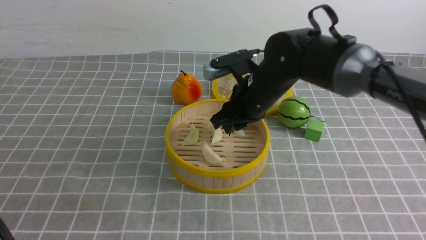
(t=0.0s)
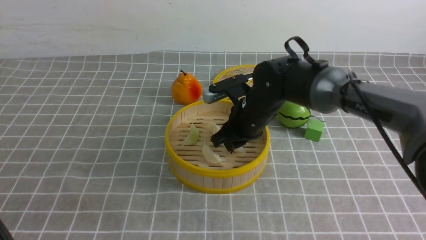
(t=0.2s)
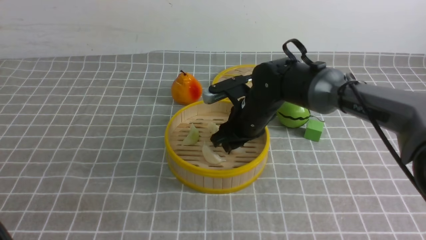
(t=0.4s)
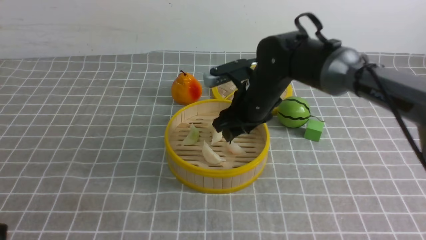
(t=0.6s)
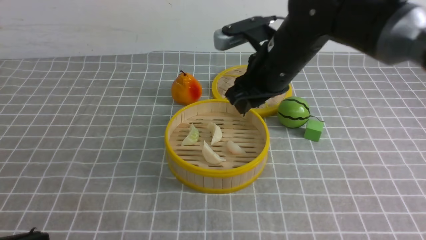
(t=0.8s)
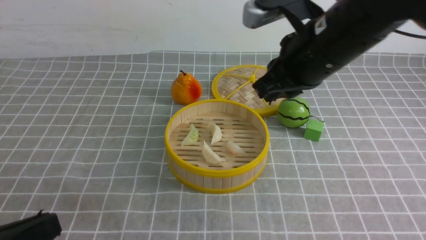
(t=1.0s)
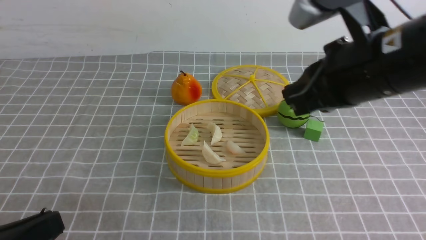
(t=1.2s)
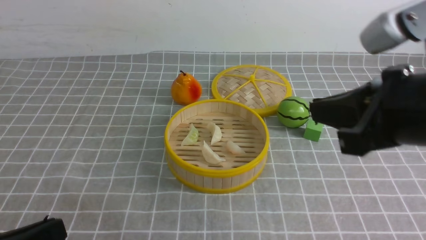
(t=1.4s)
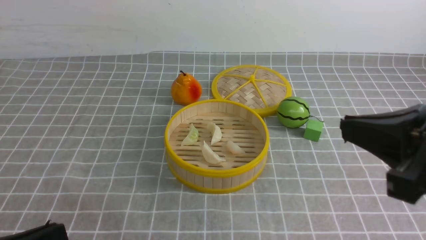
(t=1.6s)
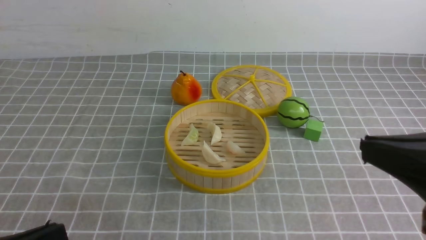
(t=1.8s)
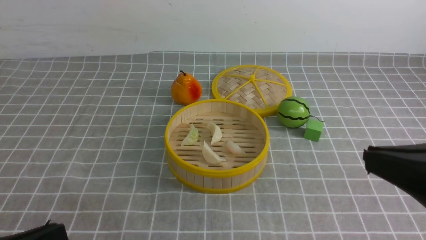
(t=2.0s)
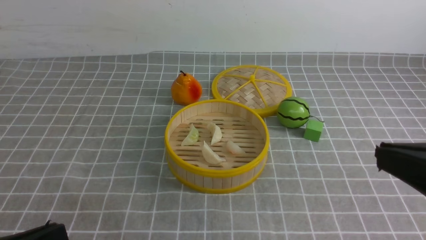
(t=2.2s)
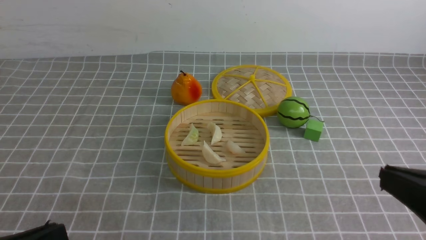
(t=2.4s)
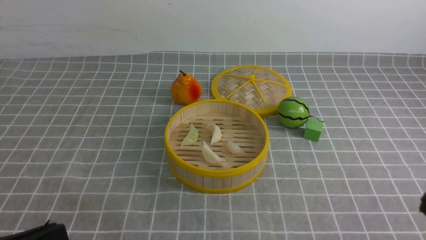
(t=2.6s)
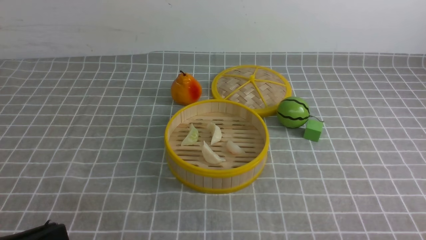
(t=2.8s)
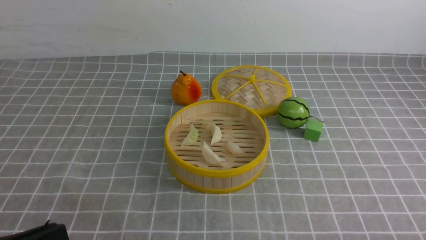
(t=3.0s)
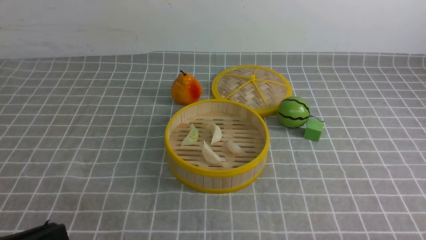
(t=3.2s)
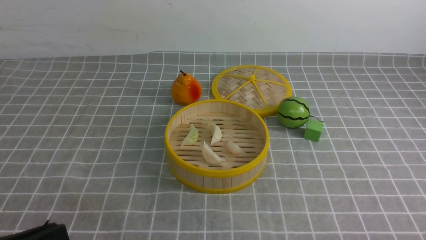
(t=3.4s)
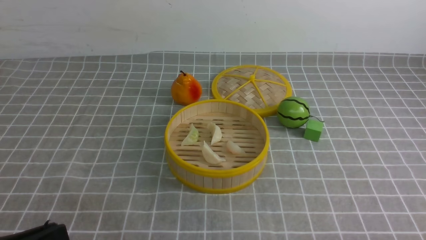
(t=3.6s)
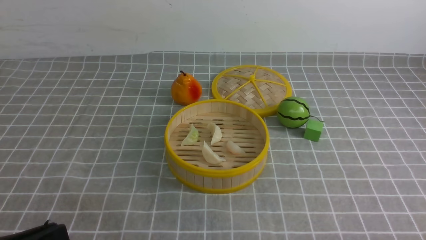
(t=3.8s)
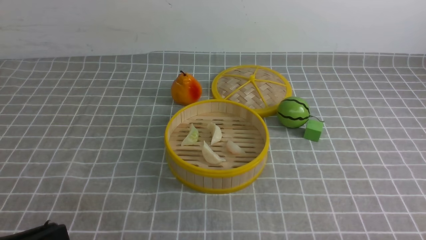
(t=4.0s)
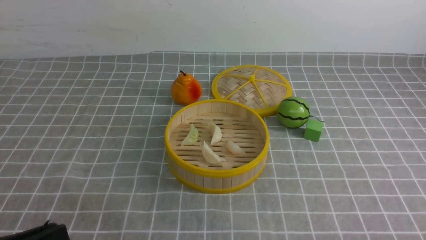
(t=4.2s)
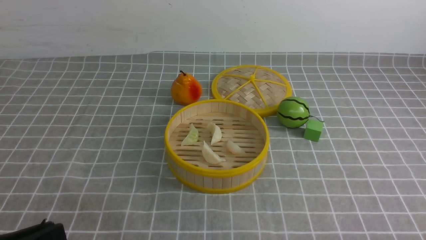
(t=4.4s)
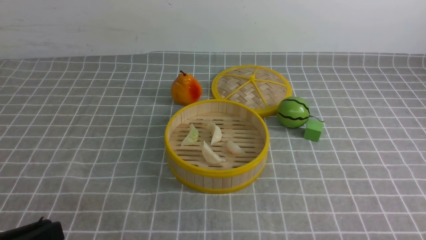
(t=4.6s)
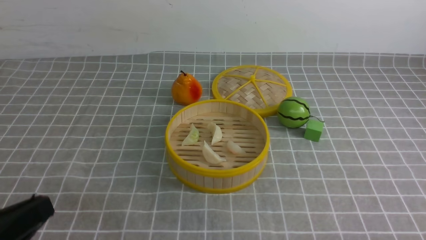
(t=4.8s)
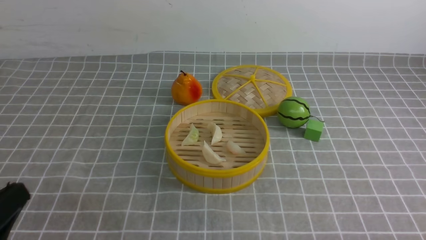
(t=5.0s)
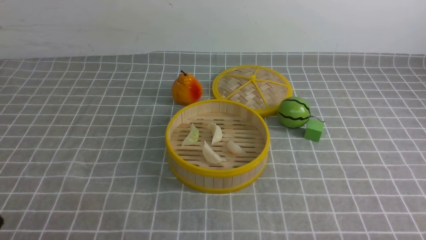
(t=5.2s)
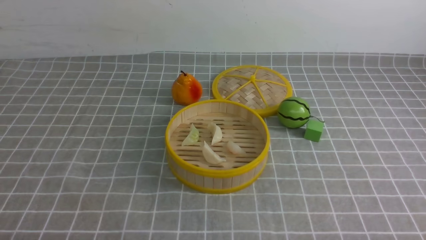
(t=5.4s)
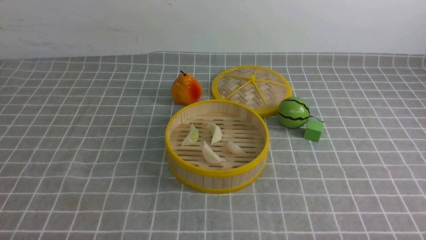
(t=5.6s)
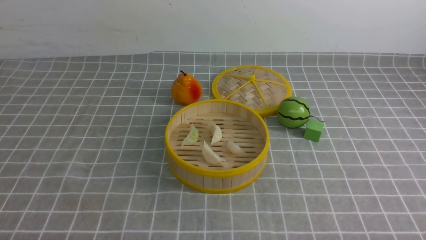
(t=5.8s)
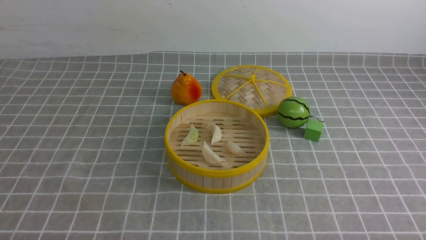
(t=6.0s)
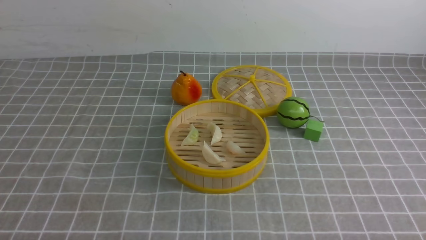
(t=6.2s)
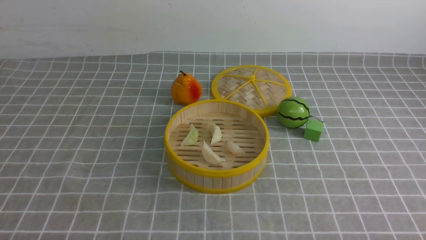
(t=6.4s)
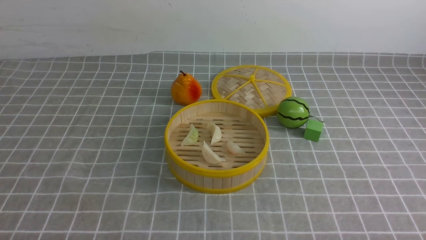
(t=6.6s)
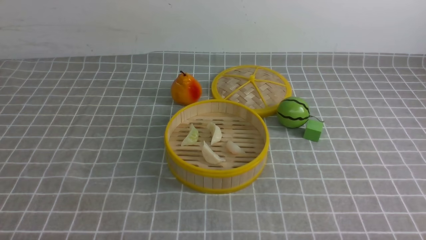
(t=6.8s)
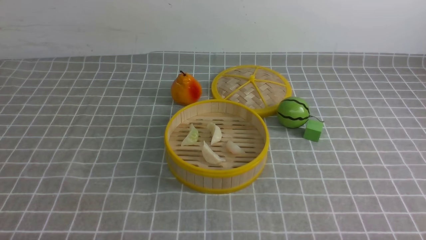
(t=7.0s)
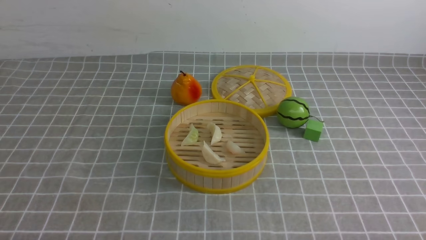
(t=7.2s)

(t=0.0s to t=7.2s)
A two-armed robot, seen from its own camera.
Task of the whole recording: put the dumplings into the steamer on the table with the grey tablecloth.
Step, t=0.0s - t=0.6s: use the right arm to put the dumpling into the steamer.
t=0.0s - t=1.4s: The left gripper shifts about 10 cm downward. The right gripper moves backward, upward and to the right, approximately 25 cm, and closes up.
t=1.4s - t=2.8s: The right gripper is displaced downward, backward and to the right by roughly 25 cm.
t=4.4s - t=5.8s: The left gripper heads downward, covering about 10 cm.
t=5.8s - t=7.2s: The two grippers keep their place.

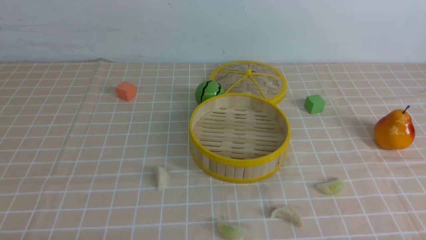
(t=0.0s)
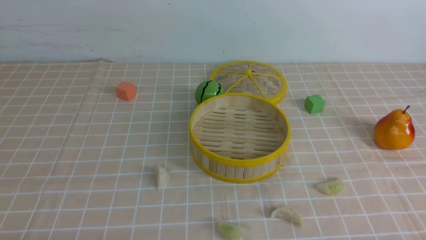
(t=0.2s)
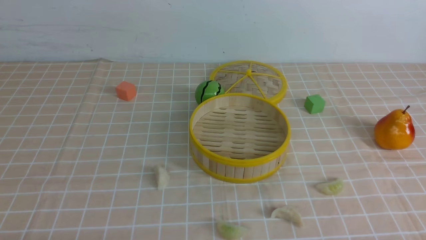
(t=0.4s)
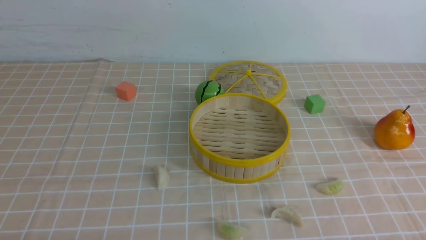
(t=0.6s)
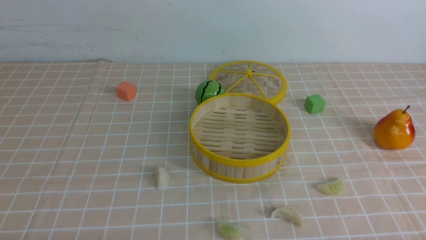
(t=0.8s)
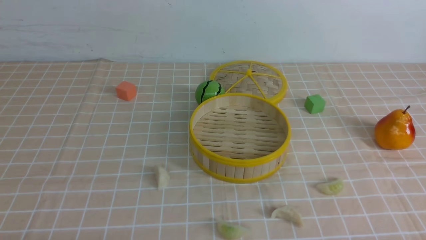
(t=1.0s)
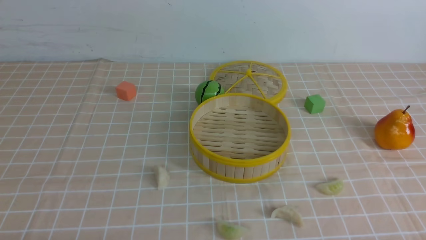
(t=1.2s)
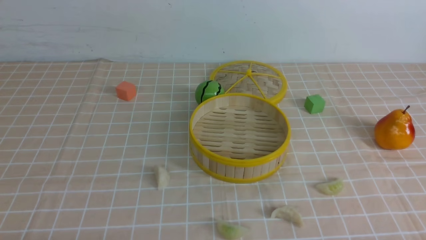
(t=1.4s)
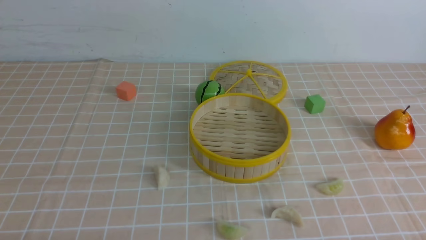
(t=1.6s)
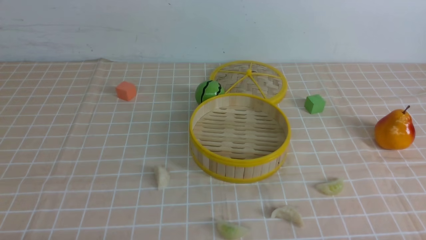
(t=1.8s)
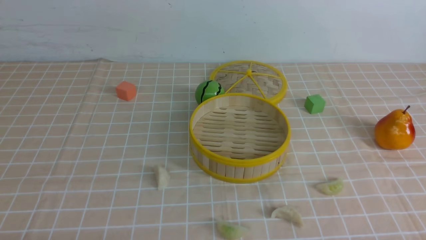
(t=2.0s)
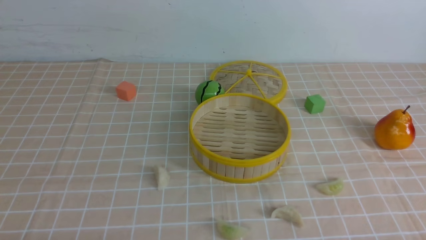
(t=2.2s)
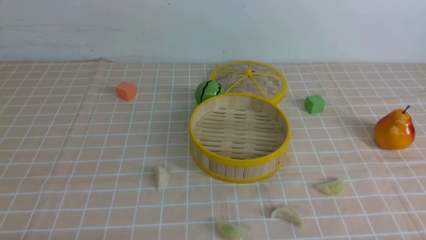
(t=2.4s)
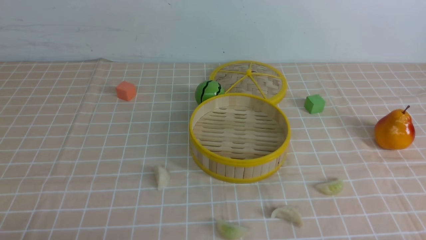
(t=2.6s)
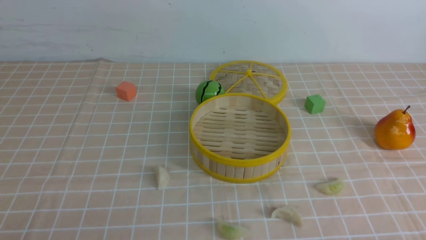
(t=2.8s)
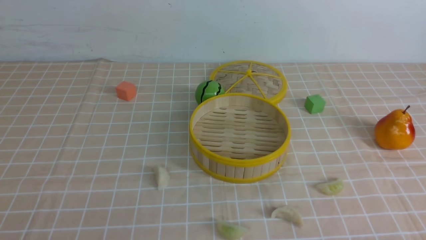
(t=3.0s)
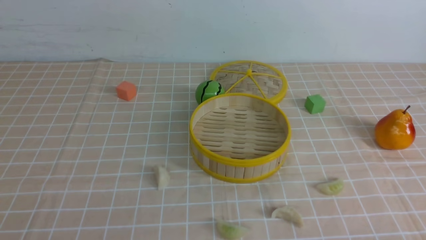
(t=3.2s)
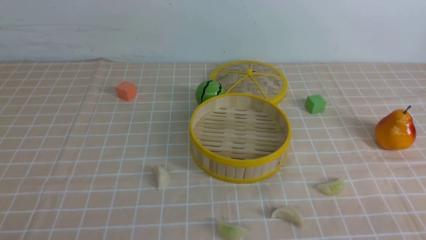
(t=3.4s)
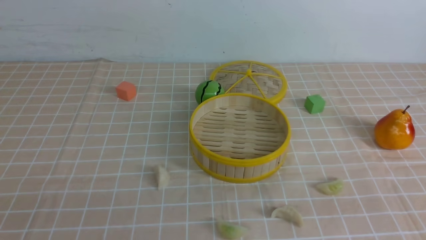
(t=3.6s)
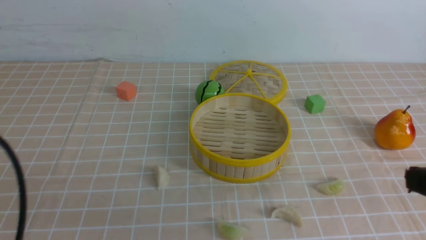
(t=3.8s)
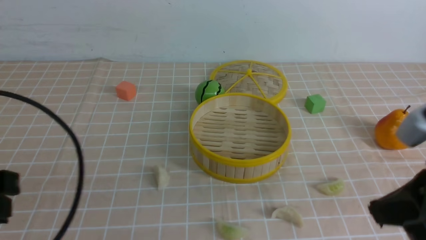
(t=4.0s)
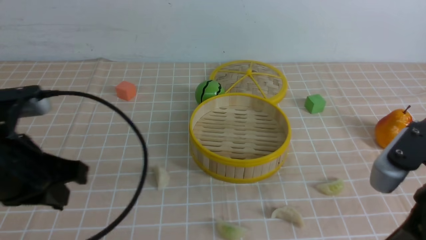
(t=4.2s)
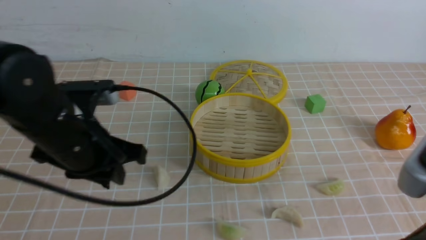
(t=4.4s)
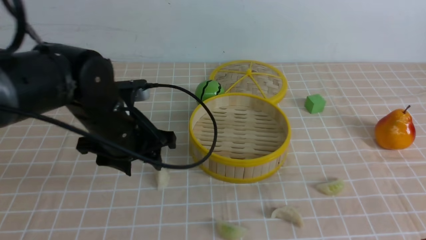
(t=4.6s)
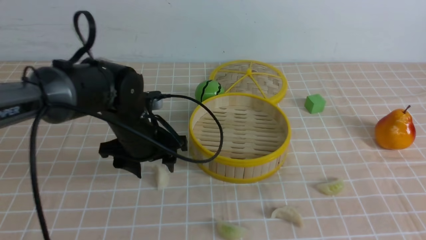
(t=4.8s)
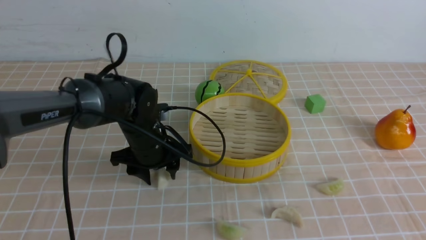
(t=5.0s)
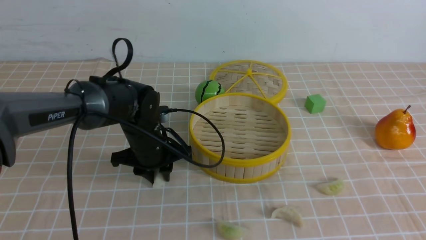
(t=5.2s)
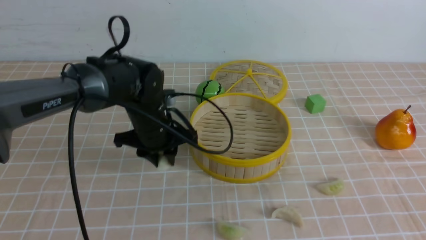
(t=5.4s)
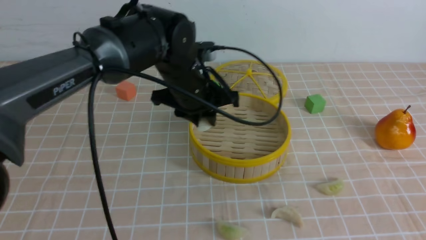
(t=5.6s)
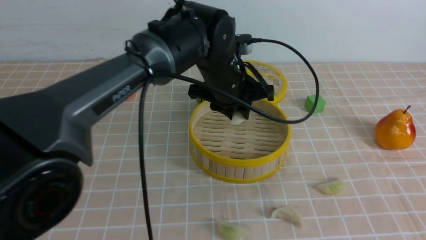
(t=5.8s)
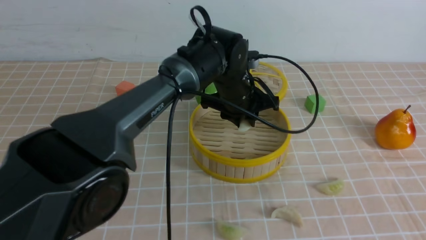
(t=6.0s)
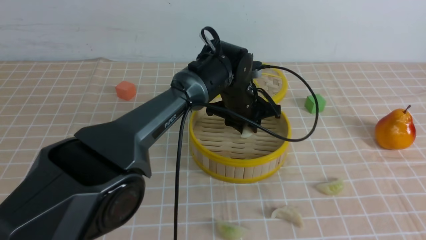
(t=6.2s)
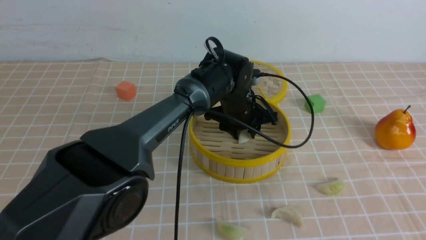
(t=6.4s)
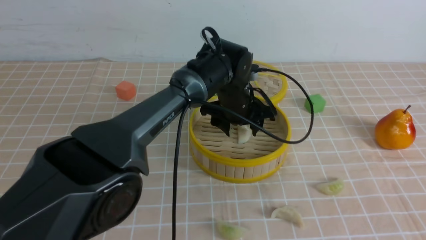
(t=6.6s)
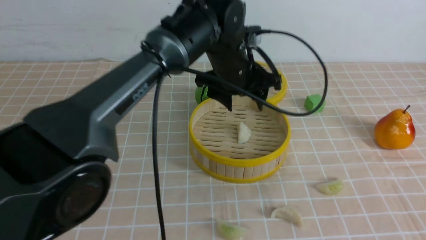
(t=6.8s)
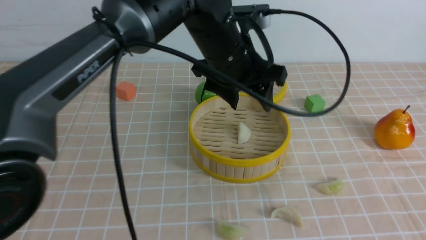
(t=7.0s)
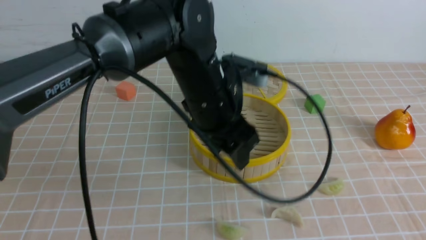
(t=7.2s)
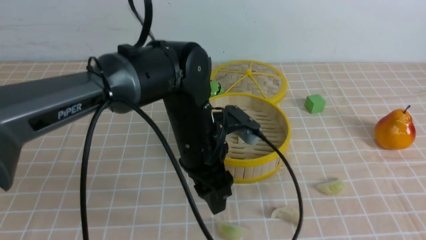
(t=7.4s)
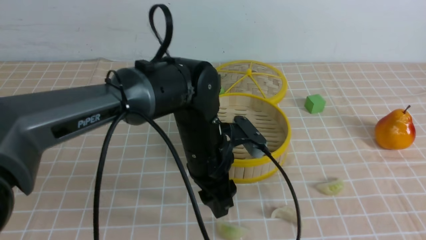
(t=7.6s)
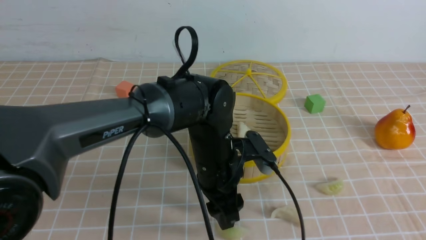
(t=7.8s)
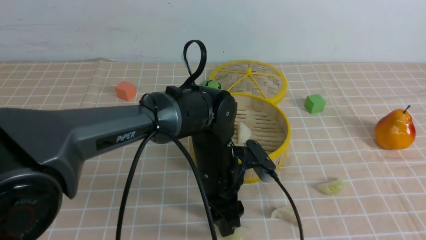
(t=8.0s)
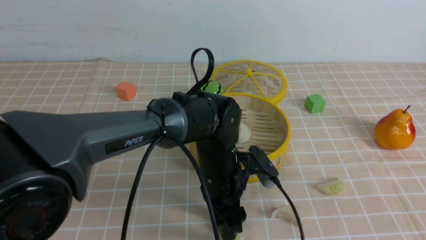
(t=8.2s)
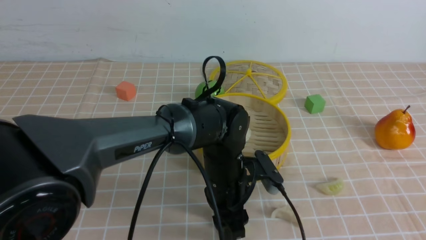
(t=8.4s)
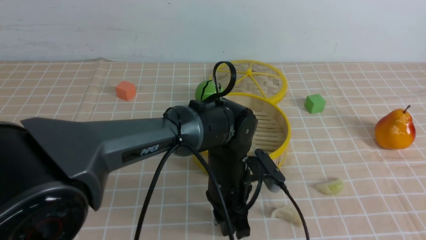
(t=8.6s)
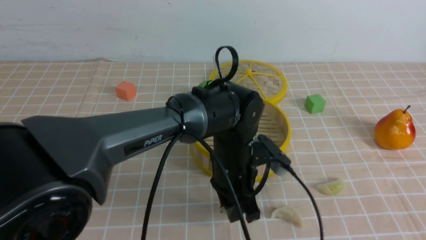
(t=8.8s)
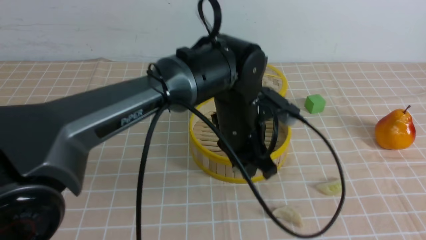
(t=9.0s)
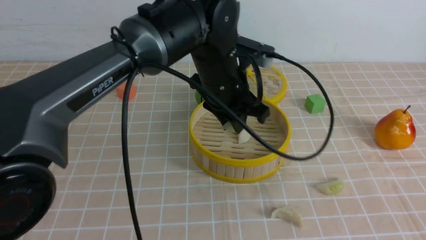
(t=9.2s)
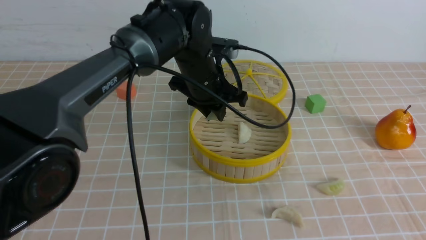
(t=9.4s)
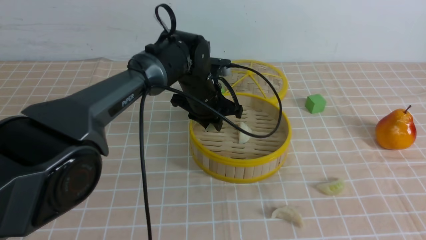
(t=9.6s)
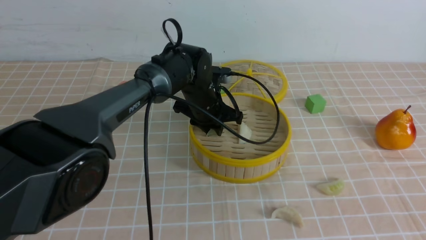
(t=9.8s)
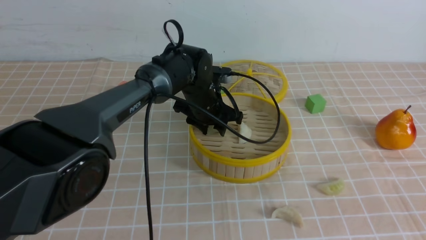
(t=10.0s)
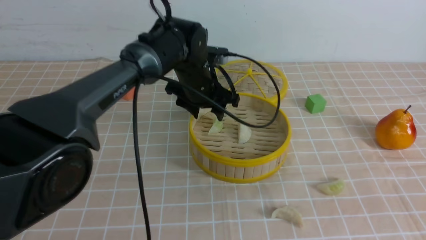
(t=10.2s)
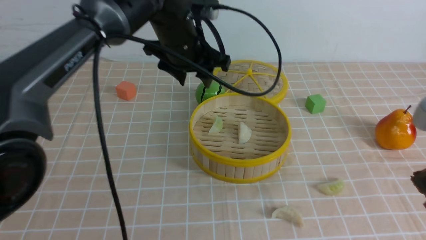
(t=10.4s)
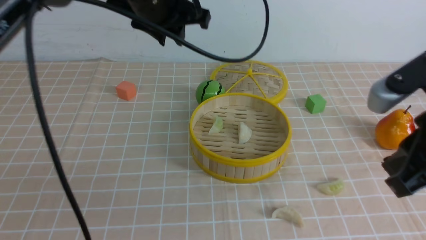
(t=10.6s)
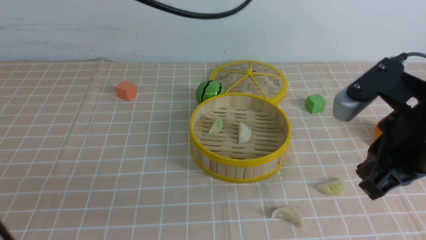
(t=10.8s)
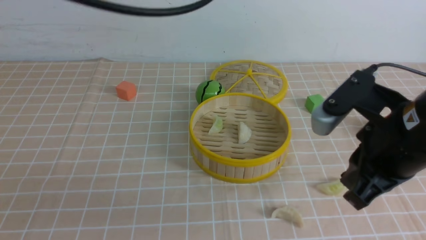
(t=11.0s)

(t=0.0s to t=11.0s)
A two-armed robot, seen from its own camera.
Task of the whole recording: put the dumplings into the steamer on the table with the brown tablecloth.
Step, t=0.0s - t=5.0s: use the left arm to grab a dumpling.
Step, t=5.2s - t=6.6s: use the left arm to put the dumpling into the steamer.
Step, t=6.8s - t=8.6s: use the left arm to grab a dumpling.
Step, t=8.8s - t=10.2s: use the left arm to put the dumpling into the steamer.
t=0.0s - t=1.6s: Both grippers stay put.
t=3.2s - t=4.8s: The right gripper shifts roughly 15 cm upward, and closes its fingers. Meanwhile the left gripper heads forward and to the right, covering roughly 35 cm, and opens up.
t=4.8s - t=6.2s: The left gripper goes roughly 20 cm to the right and forward, and closes up. Meanwhile the right gripper moves roughly 5 cm.
t=6.2s - t=7.8s: The left gripper travels backward by some 15 cm.
t=7.8s - t=9.4s: The left gripper is displaced forward and upward by some 15 cm, and closes up.
t=9.4s - t=11.0s: The right gripper moves forward and to the left, about 20 cm; the left gripper is displaced upward, backward and to the left by approximately 30 cm, and closes up.
